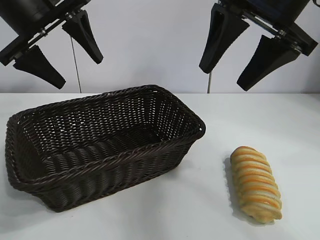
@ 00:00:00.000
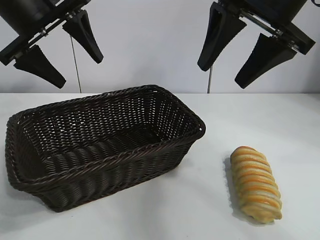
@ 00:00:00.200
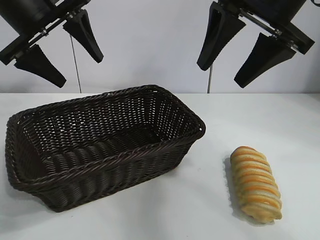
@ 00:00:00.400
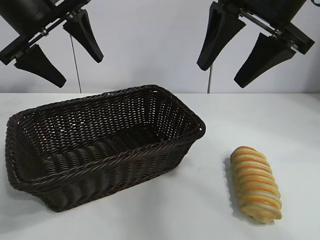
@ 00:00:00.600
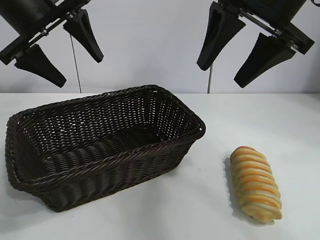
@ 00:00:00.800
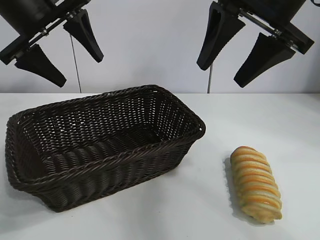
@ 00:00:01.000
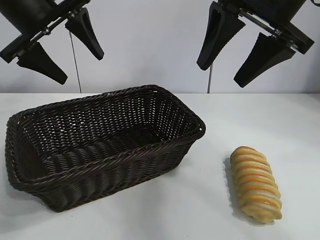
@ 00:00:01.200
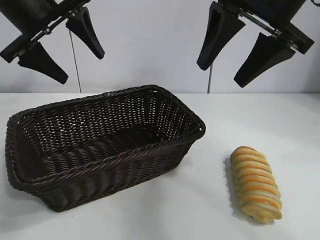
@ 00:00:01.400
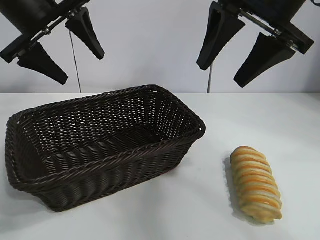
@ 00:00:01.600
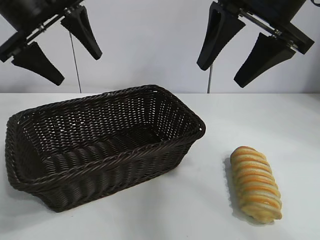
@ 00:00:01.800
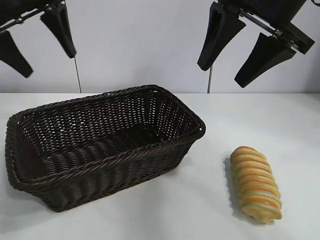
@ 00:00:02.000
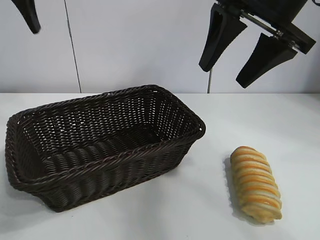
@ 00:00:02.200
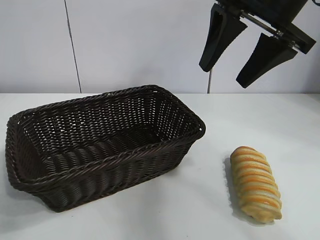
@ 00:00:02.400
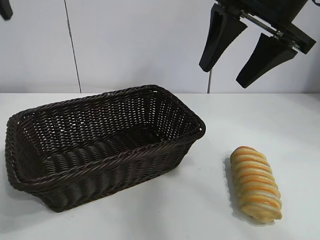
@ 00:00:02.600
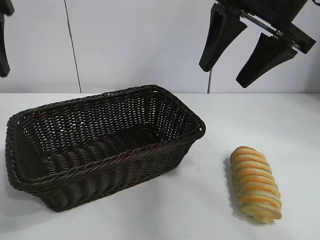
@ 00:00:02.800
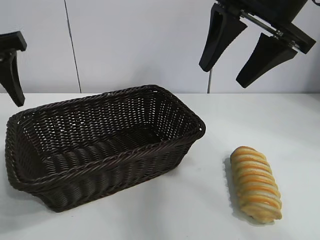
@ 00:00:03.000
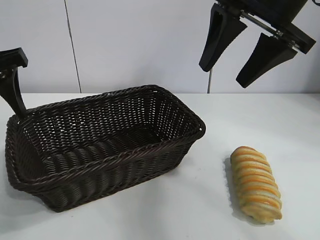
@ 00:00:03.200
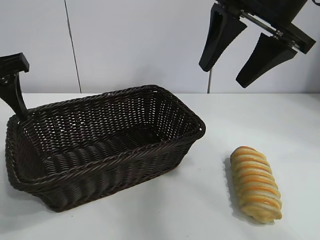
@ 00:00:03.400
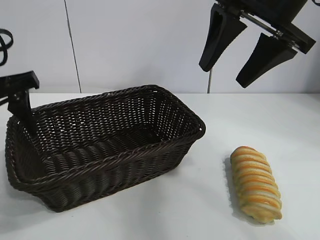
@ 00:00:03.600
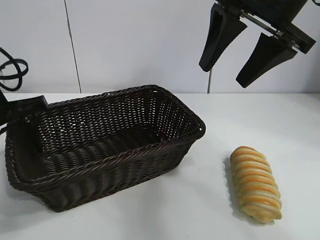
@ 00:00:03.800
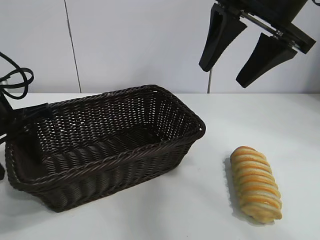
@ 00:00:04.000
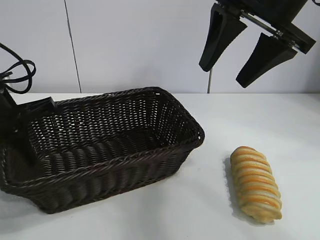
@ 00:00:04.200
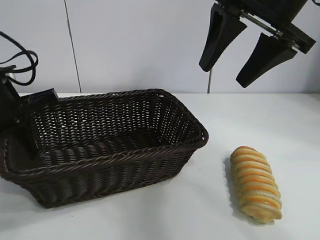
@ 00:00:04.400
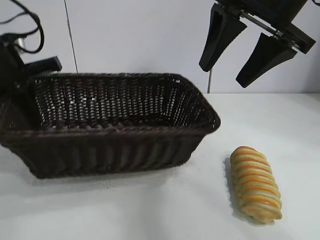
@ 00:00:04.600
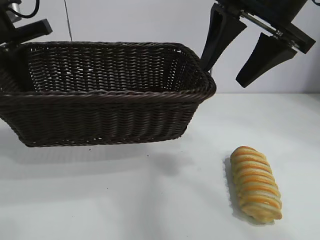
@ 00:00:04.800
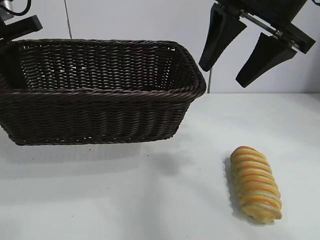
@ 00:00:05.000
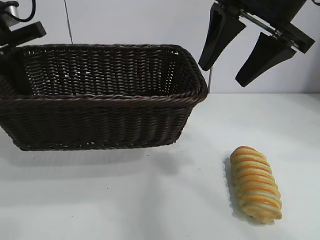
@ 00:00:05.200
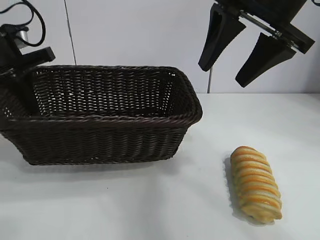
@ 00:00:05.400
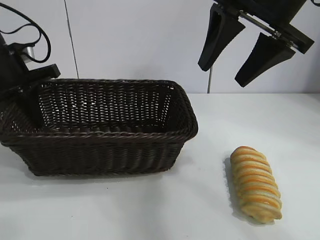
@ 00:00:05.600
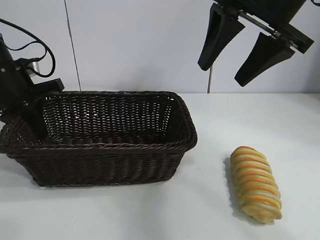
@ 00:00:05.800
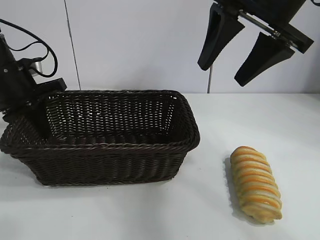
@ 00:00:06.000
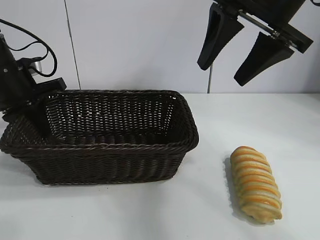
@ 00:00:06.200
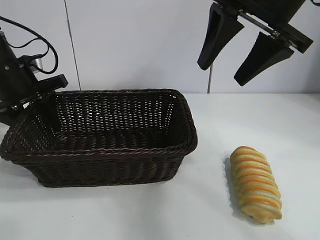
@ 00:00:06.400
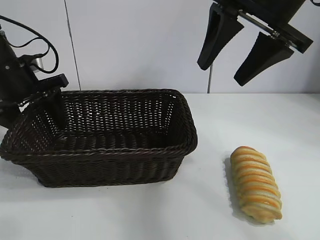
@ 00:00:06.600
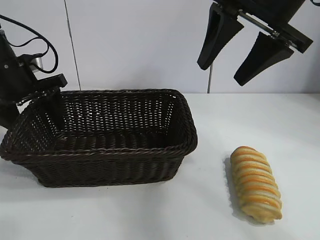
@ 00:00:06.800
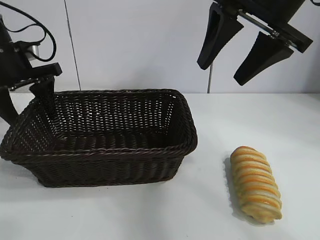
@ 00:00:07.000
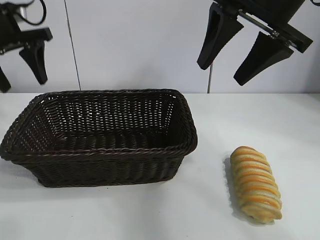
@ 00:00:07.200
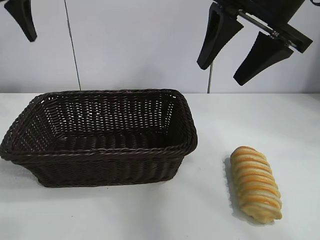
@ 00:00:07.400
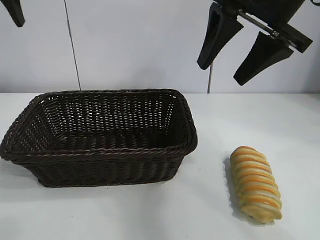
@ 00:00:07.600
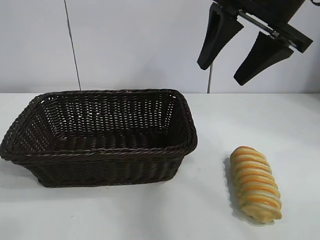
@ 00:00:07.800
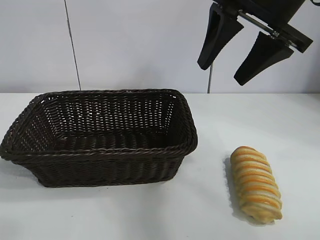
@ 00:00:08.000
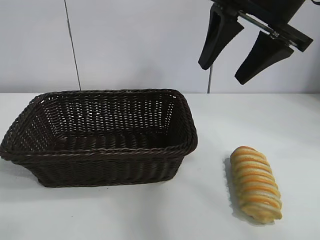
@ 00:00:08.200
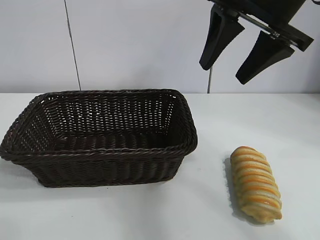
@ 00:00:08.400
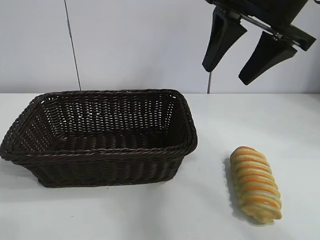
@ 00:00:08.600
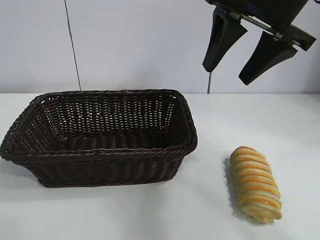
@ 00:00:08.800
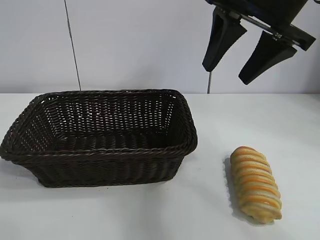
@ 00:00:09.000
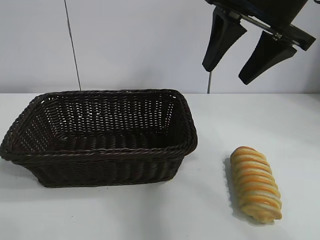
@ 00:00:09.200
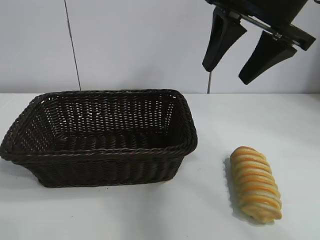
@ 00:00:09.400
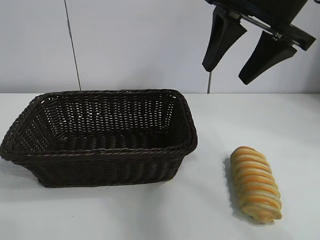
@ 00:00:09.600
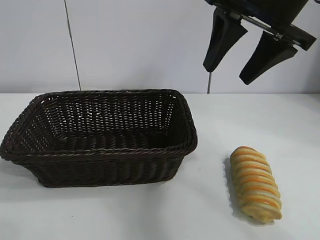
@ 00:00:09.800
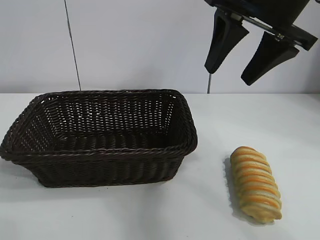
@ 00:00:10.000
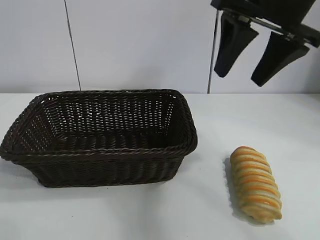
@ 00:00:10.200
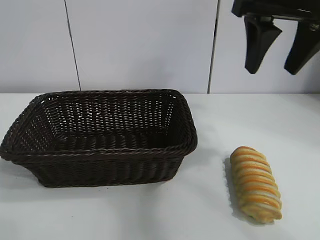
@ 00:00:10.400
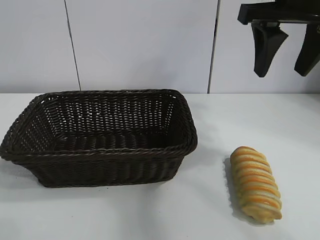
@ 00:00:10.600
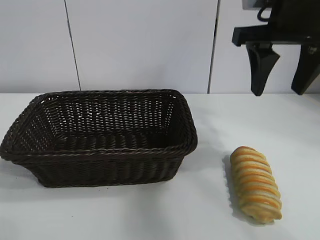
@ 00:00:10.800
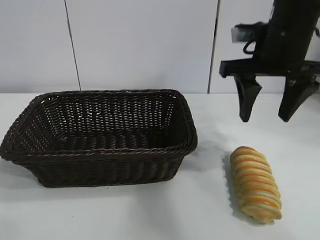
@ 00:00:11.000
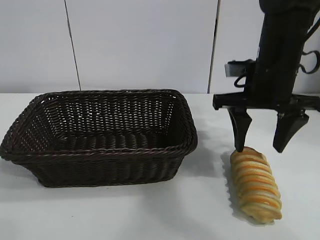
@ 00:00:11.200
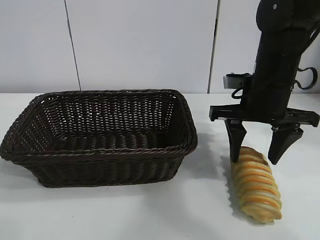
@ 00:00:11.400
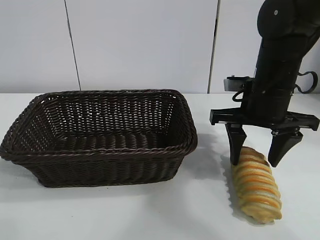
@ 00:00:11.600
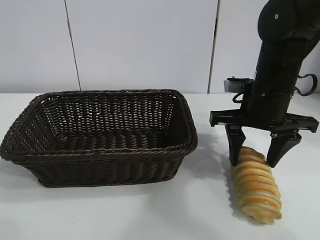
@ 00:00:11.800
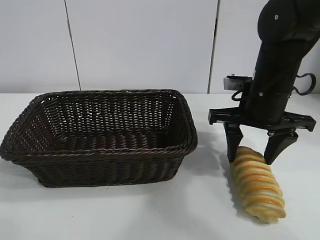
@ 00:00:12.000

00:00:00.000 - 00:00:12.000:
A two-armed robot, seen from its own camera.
Task of the whole recording: pick up the long bread and put it into the basket.
Step, 00:00:00.600 - 00:00:04.000: Grasp the basket with the left gripper.
Step, 00:00:04.400 - 00:00:06.400: Place the basket in the center of the table with the left gripper.

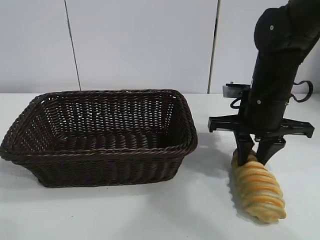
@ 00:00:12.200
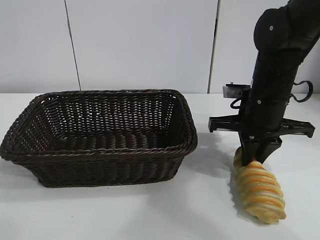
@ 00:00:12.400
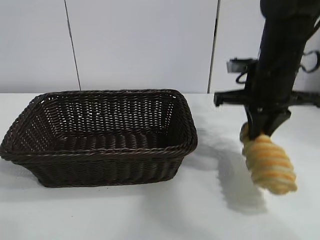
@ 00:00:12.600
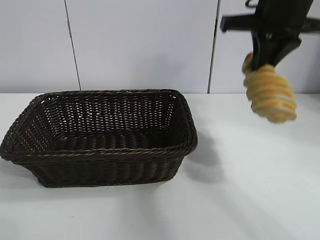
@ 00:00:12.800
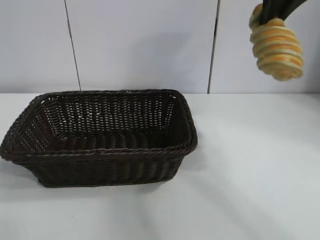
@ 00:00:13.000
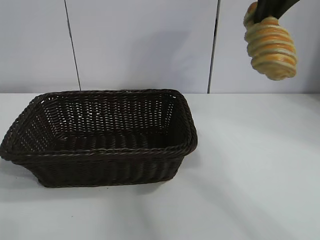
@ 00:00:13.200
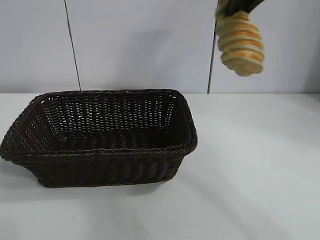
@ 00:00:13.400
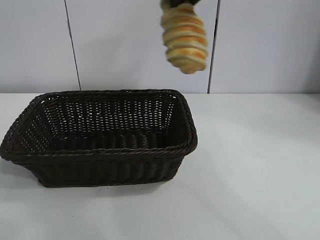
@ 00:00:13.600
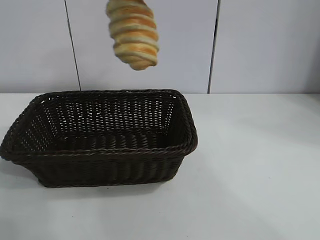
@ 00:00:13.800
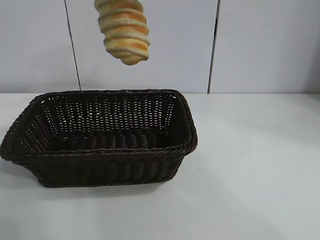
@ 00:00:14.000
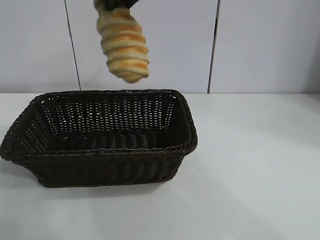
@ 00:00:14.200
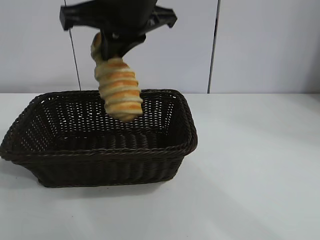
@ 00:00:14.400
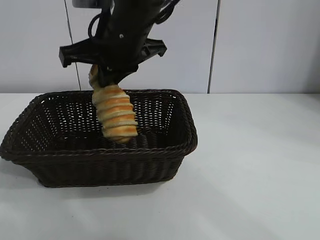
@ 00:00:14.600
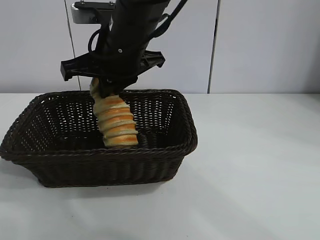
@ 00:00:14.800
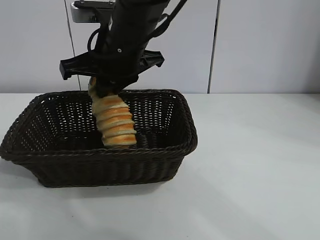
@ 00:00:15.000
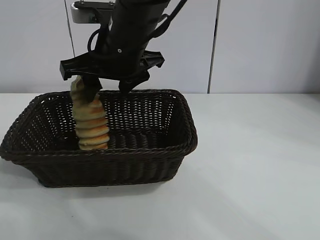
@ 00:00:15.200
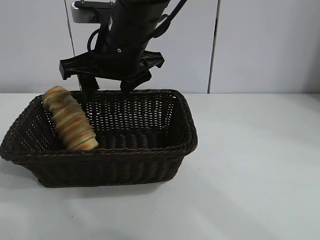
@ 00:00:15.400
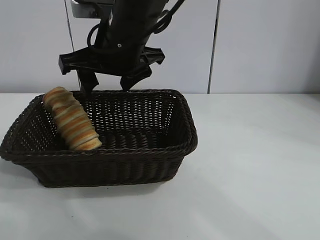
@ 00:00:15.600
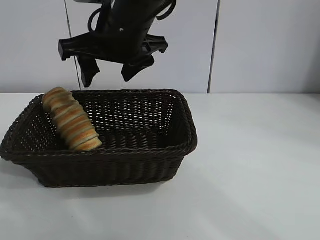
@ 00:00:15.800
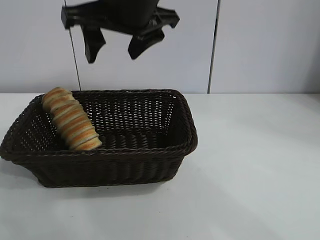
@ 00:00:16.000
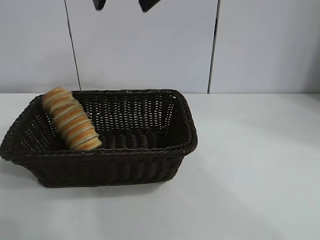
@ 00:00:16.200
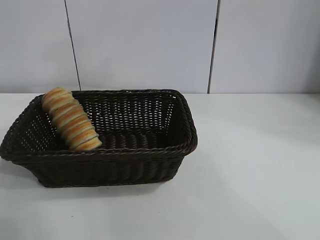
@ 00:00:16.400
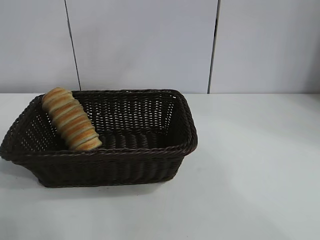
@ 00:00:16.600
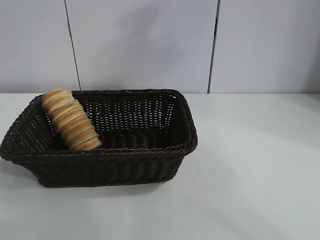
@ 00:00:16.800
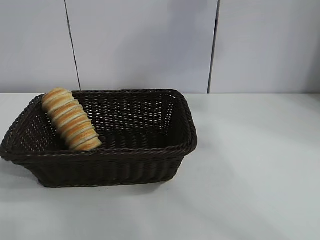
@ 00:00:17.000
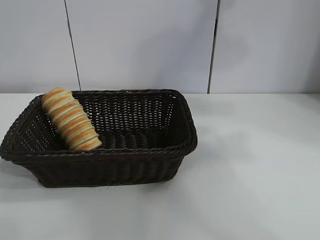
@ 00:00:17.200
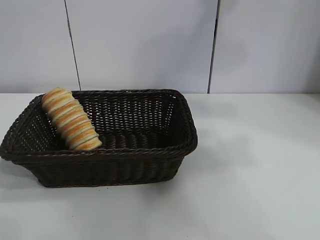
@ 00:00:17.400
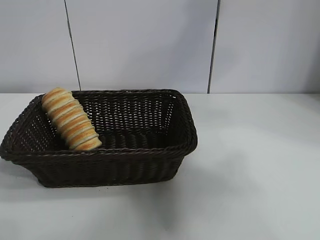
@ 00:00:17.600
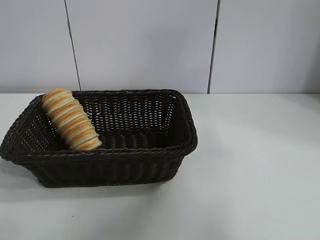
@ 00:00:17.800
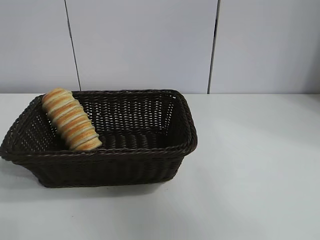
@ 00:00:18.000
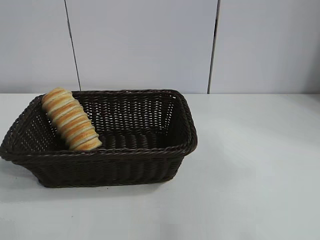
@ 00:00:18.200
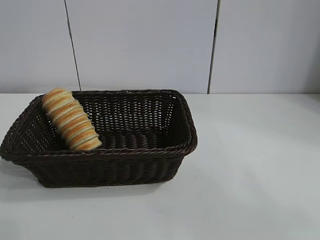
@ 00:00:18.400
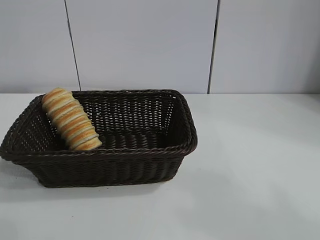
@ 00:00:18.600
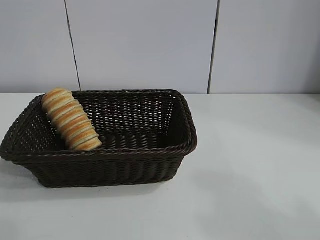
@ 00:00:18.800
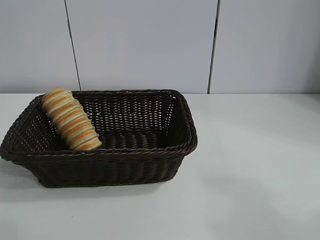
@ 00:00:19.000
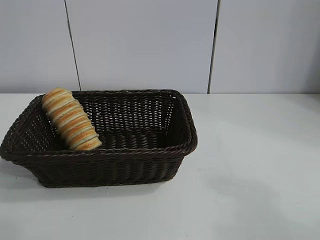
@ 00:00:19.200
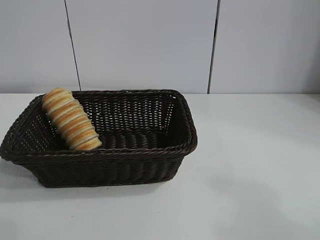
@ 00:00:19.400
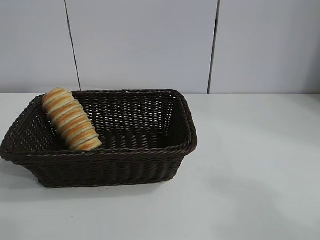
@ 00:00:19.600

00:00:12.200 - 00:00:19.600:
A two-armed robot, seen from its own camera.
Task of the whole recording: pick up the long bread and put it into the basket.
Step, 00:00:12.600 - 00:00:15.400: Place the long bread in the basket with right gripper.
